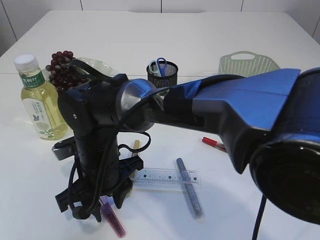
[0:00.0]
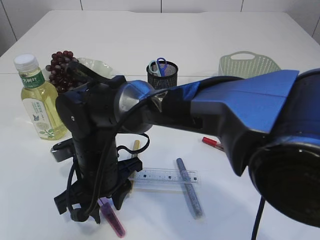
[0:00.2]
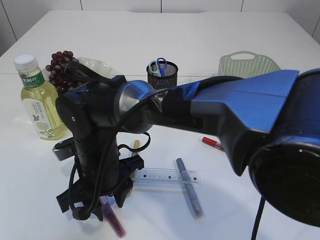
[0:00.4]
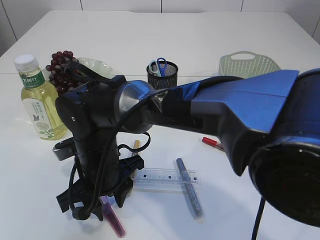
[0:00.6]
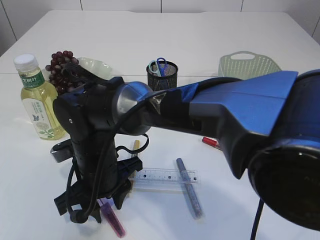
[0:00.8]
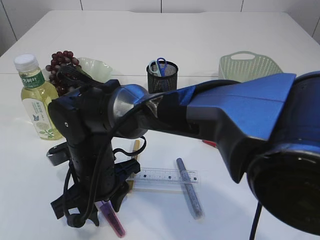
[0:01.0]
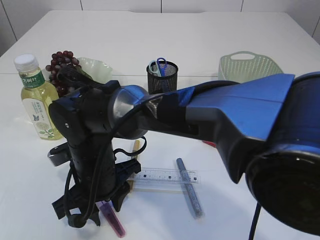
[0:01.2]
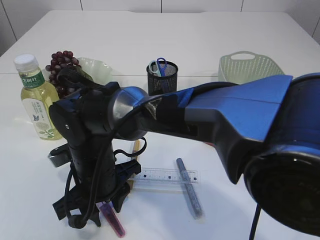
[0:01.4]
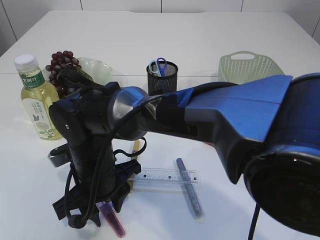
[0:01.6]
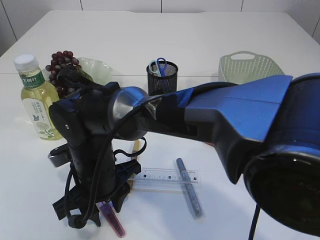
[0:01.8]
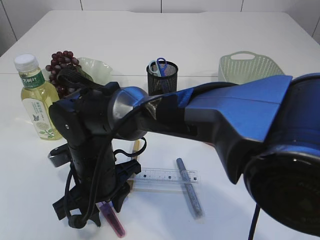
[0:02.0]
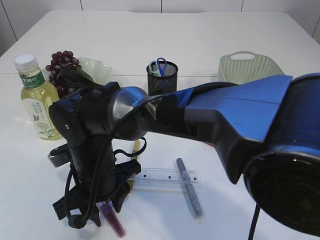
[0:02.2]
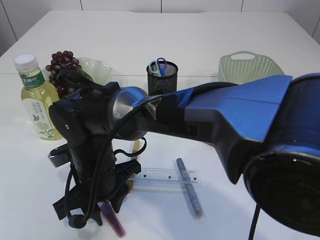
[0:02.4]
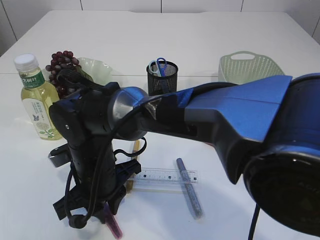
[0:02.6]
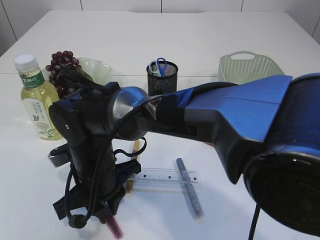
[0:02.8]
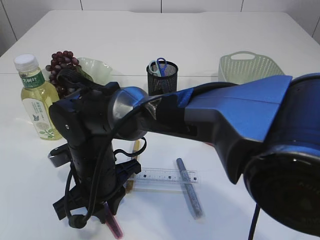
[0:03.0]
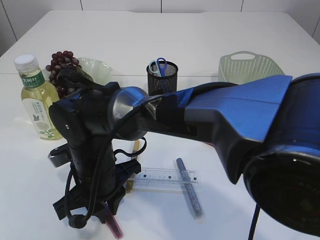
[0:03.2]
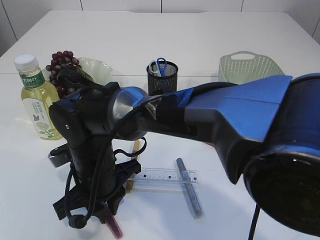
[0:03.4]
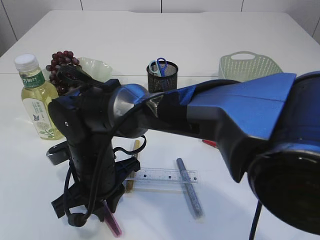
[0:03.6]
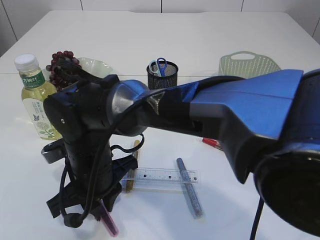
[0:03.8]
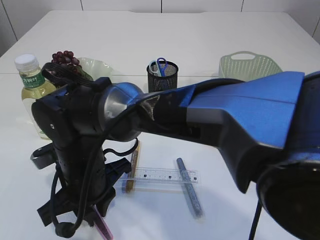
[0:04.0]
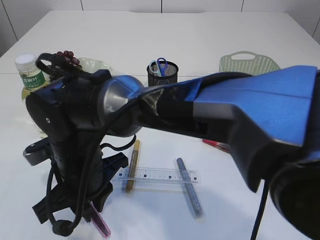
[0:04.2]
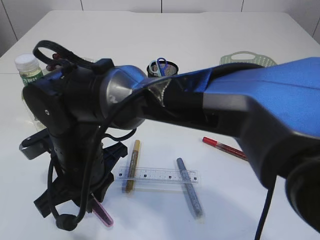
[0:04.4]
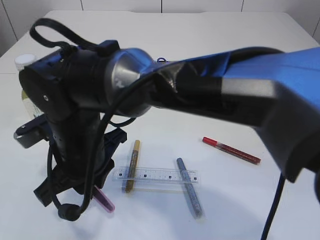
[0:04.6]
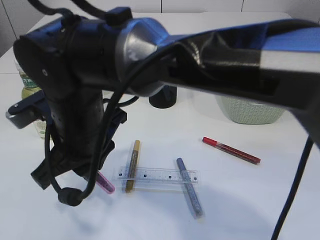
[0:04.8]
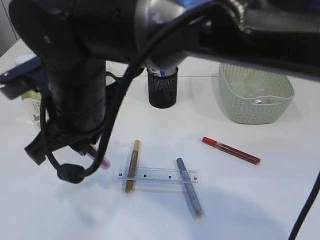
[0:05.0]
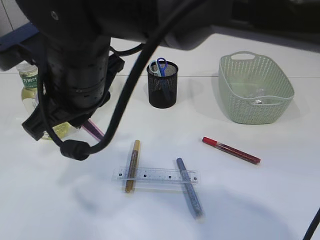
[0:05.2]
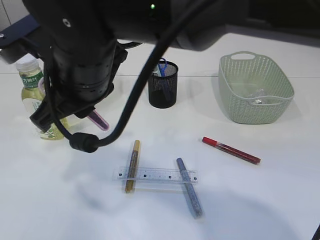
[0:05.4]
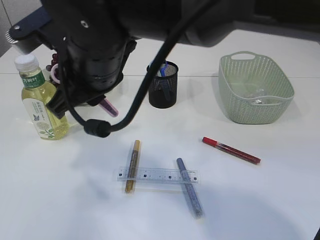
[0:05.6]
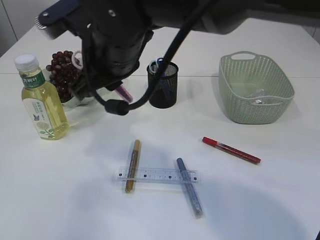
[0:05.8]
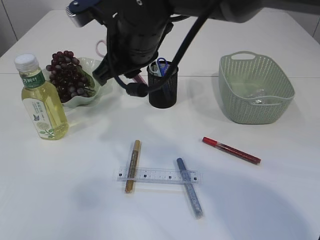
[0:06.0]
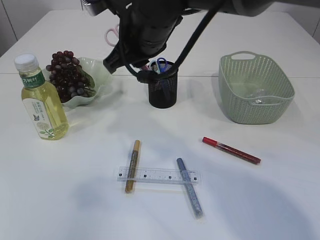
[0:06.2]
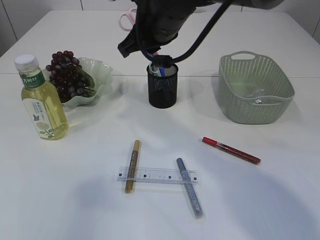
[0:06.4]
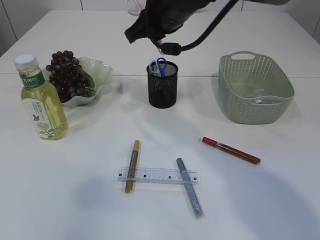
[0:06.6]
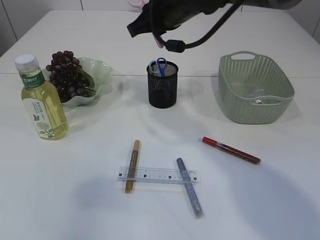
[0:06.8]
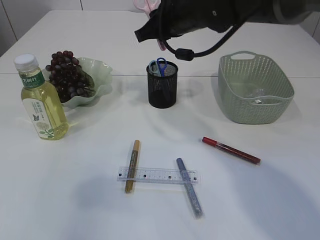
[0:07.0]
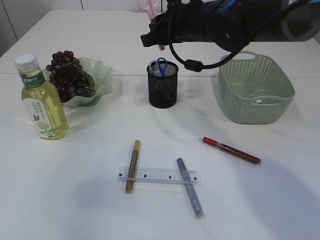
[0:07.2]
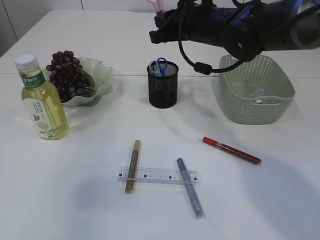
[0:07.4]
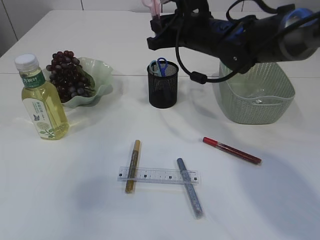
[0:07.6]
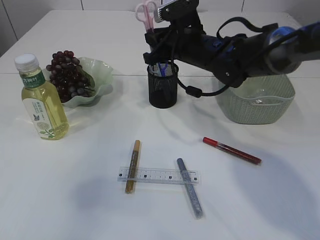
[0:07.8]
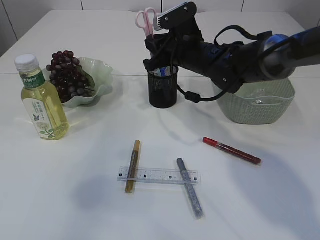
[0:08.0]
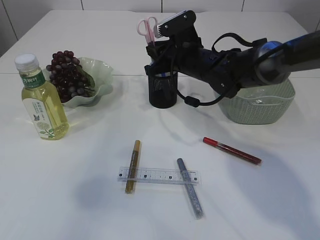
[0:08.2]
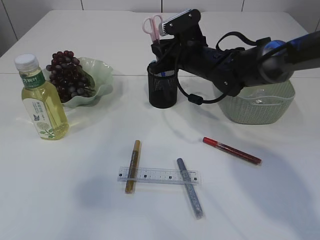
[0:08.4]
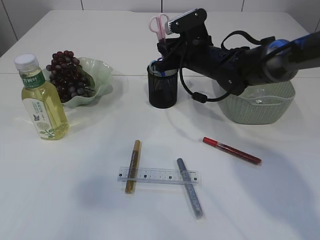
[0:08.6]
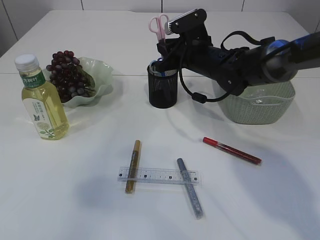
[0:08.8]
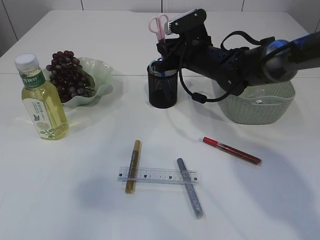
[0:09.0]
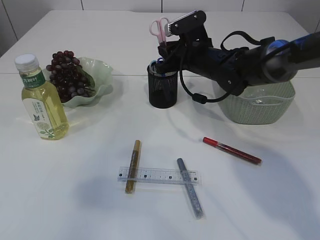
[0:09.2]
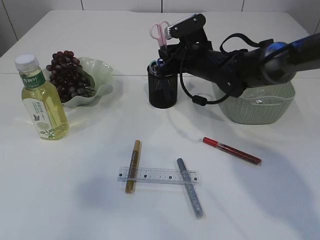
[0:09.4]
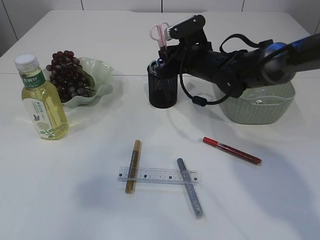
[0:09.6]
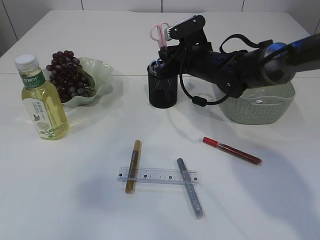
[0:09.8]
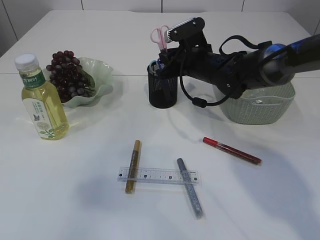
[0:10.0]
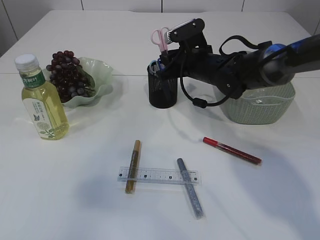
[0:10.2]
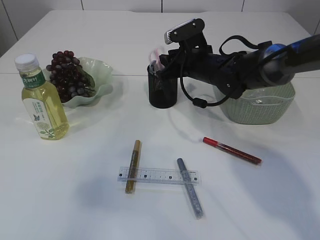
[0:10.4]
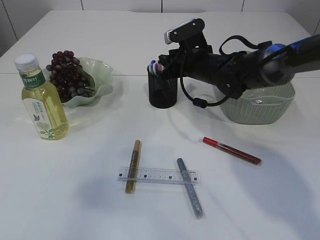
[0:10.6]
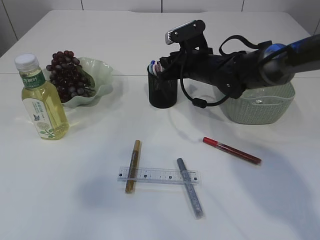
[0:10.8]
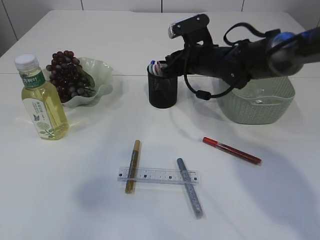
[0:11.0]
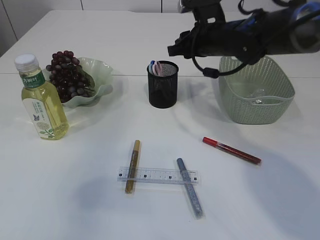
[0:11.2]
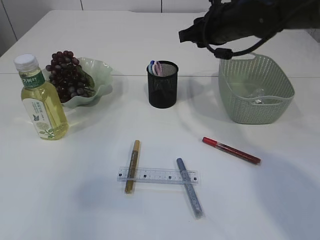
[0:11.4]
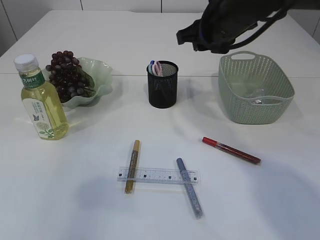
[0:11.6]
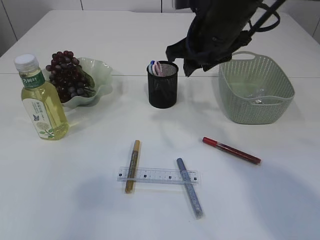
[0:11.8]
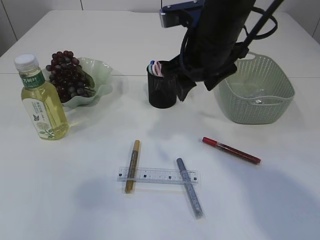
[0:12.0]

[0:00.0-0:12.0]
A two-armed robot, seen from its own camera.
Step, 0:00.0 to 0:04.4: pick up the pink scissors.
Step, 0:04.6 to 0:11.2: Place the pink scissors into the pen holder.
0:00.0 to 0:03.0: Both grippers stay about where they are.
0:04.4 to 0:06.0: The right gripper is displaced upward, to the right and forward by approximately 15 cm.
0:06.0 to 0:07.6: The right gripper travels to the right and forward by approximately 15 cm.
0:07.6 to 0:09.0: The right gripper is displaced downward by about 5 cm.
0:09.0 to 0:10.4: The grippers stay close to where they were, moving slightly.
0:10.4 to 0:12.0: The right gripper travels upward and backward by roughly 15 cm, and opens.

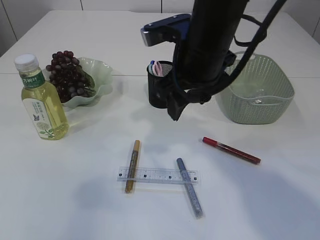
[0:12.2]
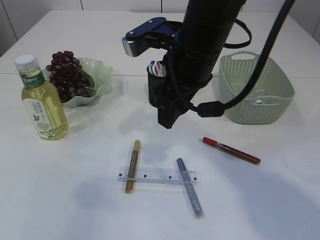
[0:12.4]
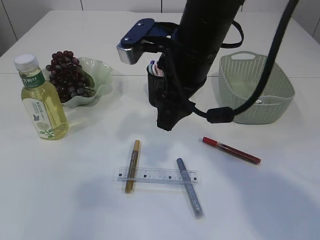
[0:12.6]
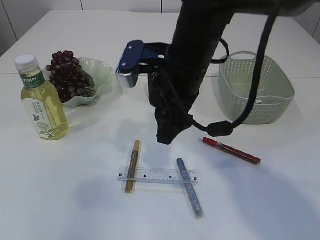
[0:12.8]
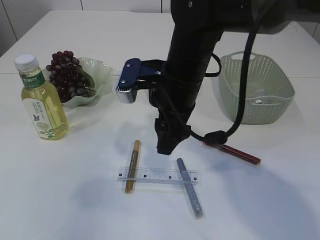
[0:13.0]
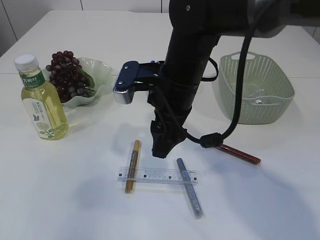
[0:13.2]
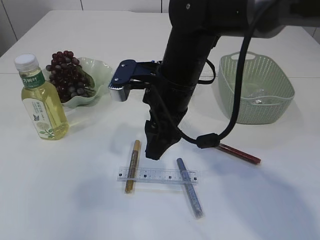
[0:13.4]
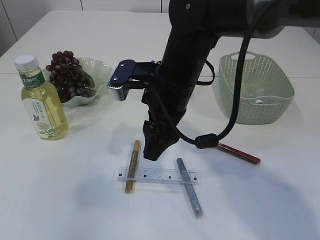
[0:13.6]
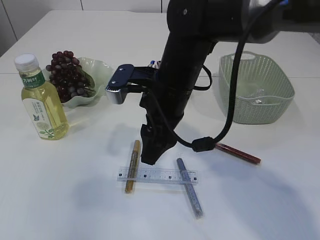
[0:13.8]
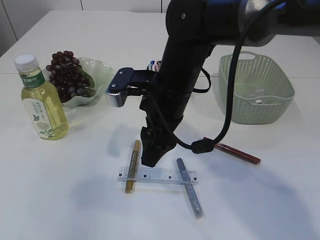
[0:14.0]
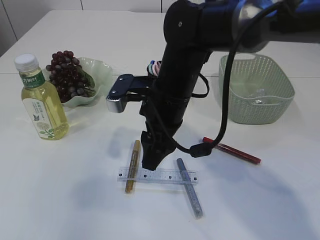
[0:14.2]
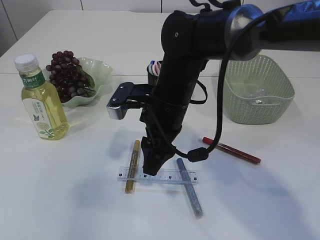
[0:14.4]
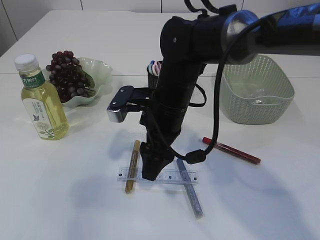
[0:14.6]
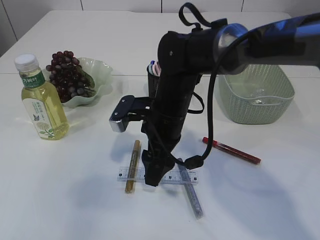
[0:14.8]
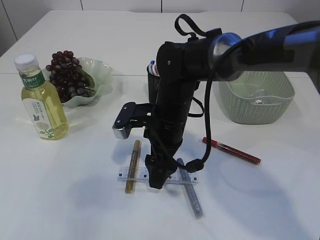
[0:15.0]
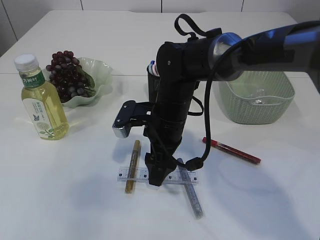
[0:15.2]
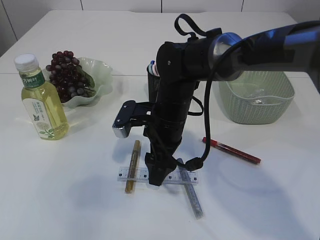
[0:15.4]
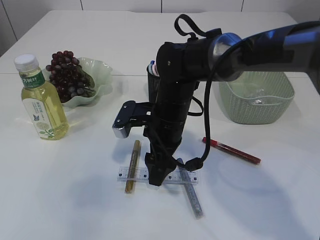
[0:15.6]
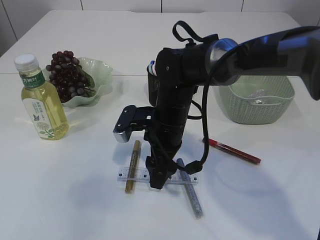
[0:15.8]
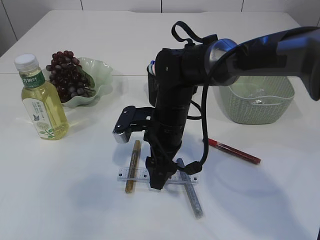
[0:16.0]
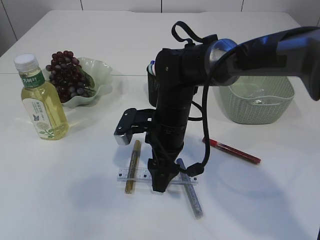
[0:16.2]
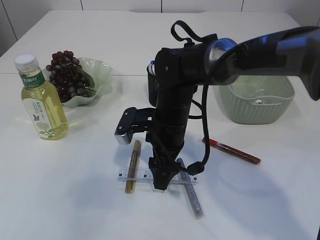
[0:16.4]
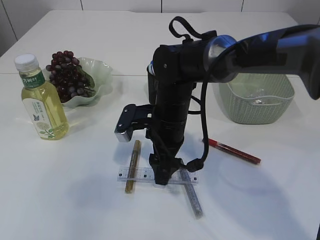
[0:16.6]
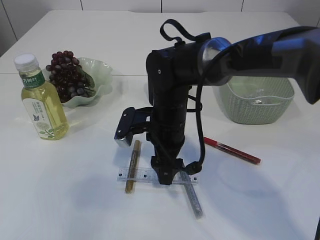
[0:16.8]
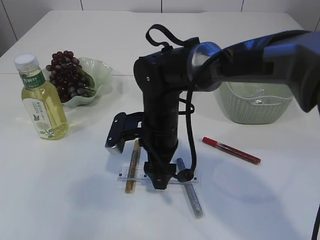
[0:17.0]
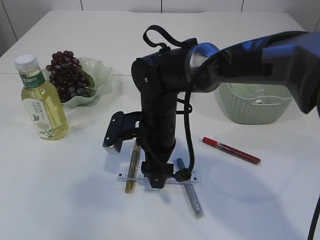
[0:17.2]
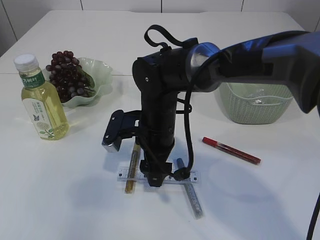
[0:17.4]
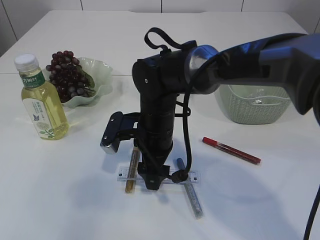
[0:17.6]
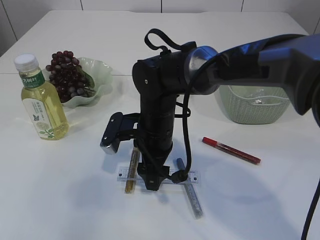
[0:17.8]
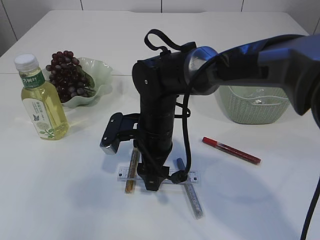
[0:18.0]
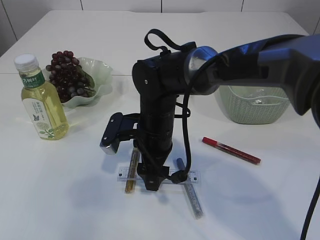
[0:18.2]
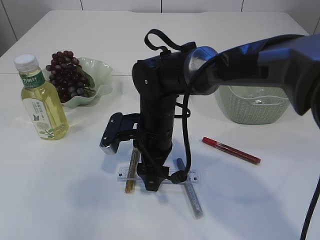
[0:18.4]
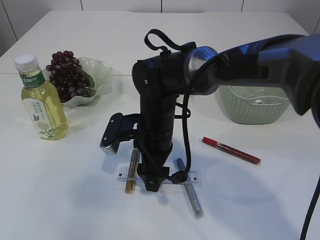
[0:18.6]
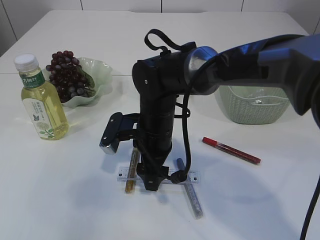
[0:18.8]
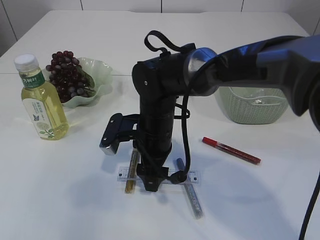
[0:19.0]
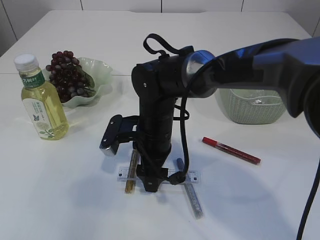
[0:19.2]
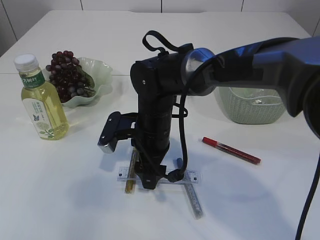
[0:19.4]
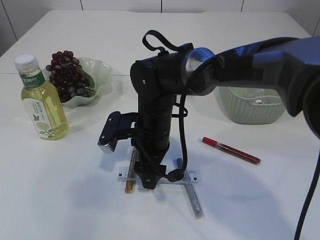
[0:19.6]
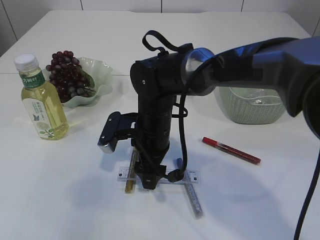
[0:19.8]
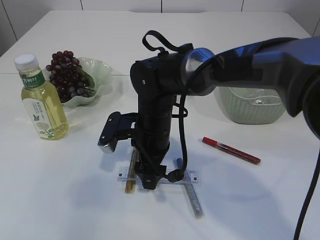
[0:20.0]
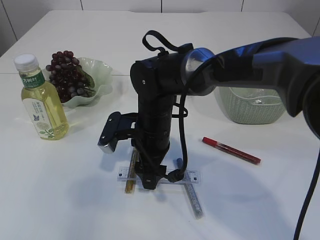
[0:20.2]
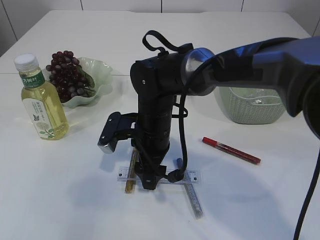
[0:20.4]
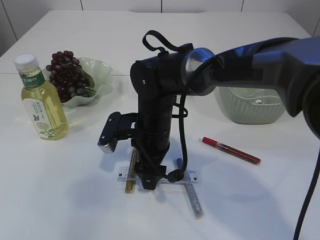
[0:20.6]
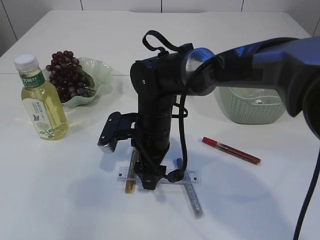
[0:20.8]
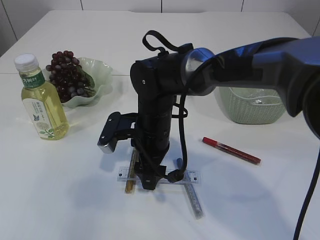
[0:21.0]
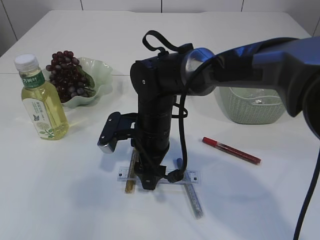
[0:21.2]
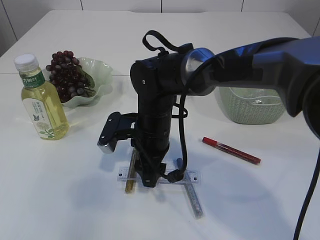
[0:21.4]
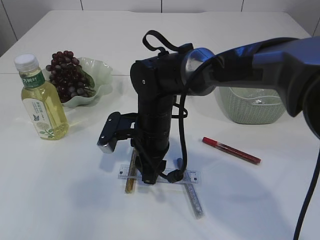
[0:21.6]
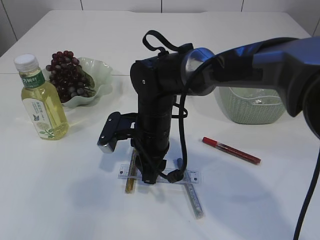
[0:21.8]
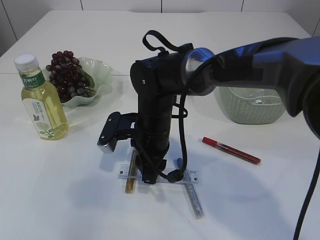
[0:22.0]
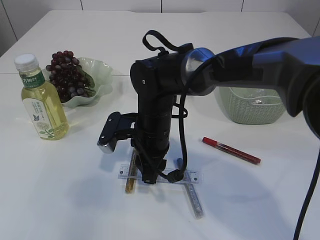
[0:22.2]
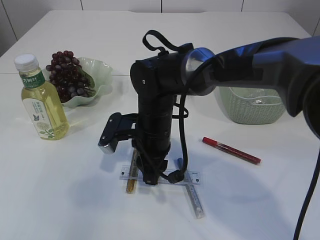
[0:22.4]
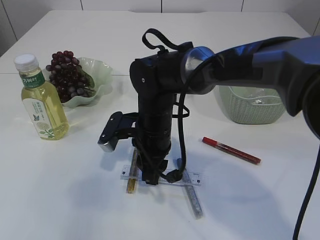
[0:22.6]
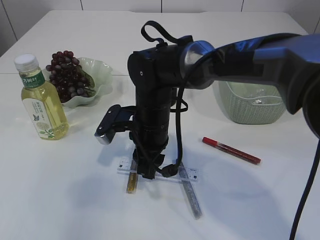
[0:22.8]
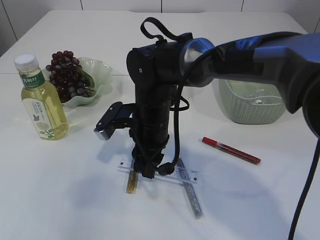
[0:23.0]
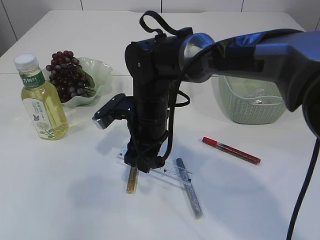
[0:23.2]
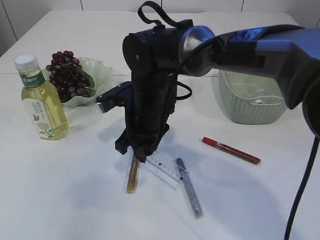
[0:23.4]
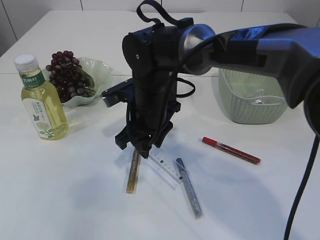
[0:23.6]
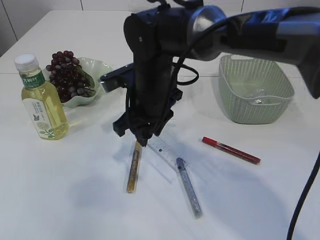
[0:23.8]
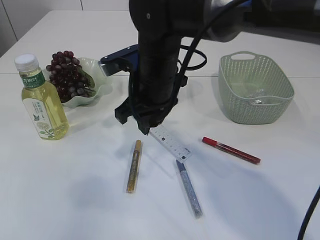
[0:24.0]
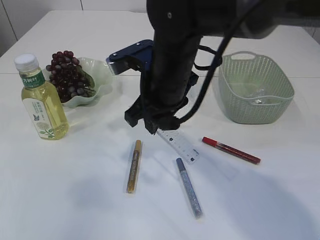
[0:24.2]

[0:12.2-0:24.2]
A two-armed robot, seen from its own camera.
0:12.2 to 0:13.8: The right gripper is displaced downward by approximately 5 cm.
0:13.8 to 0:15.2: The right gripper is displaced downward by approximately 10 cm.
0:15.2 to 0:16.6: Neither gripper changes place.
0:16.6 to 0:18.2: The grippers make only small movements.
0:18.2 to 0:21.2: The two grippers keep their place.
0:21.2 to 0:22.6: The right gripper closes.
0:22.6 to 0:24.2: The right gripper shifts roughly 10 cm upward.
